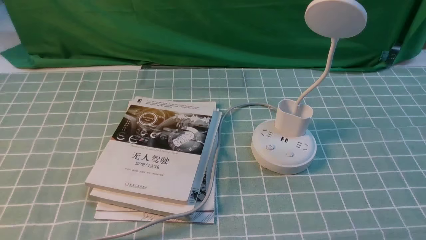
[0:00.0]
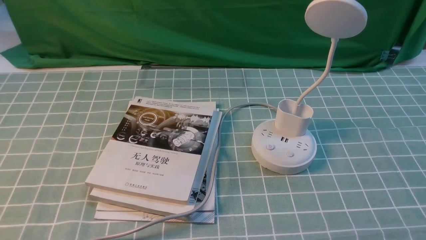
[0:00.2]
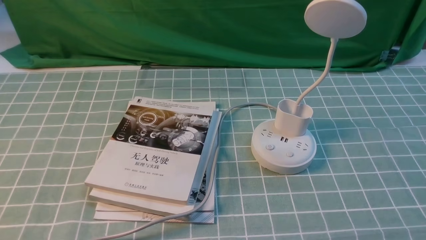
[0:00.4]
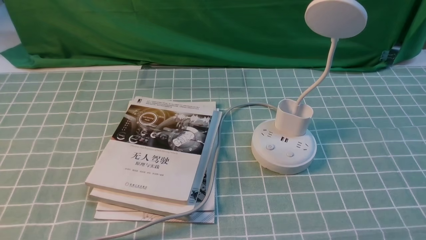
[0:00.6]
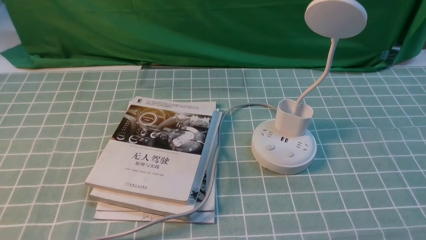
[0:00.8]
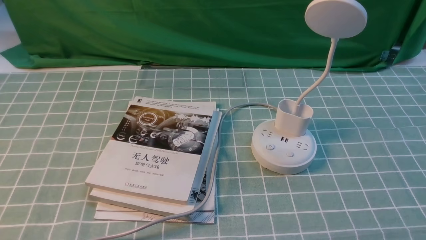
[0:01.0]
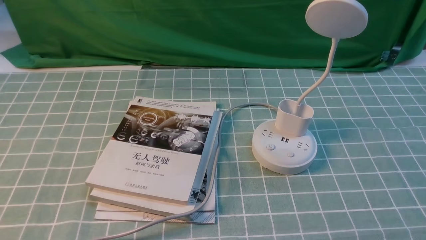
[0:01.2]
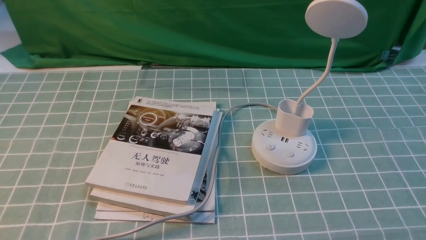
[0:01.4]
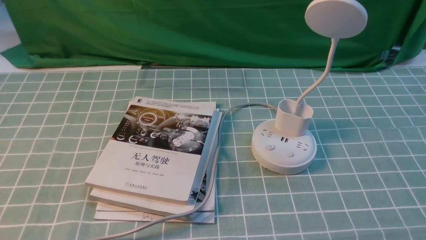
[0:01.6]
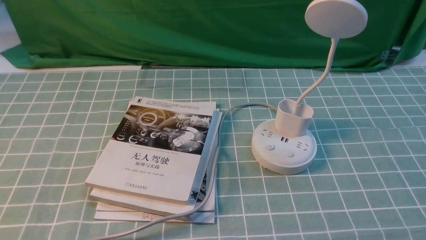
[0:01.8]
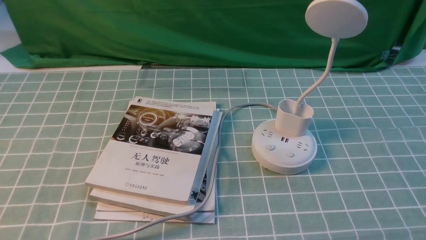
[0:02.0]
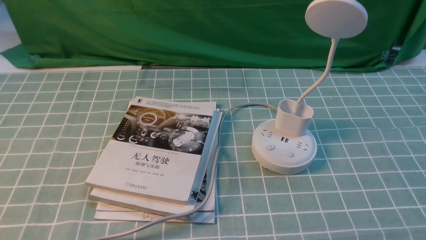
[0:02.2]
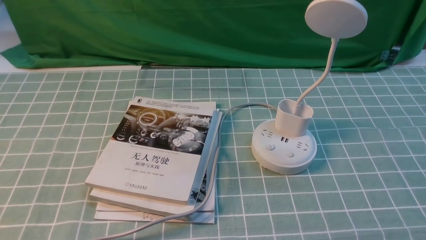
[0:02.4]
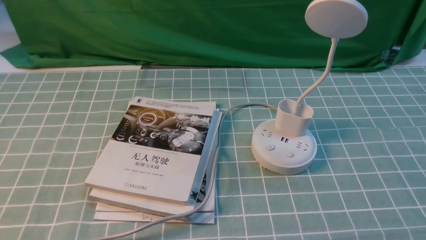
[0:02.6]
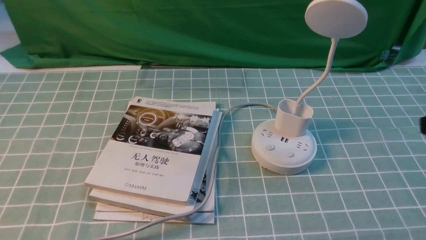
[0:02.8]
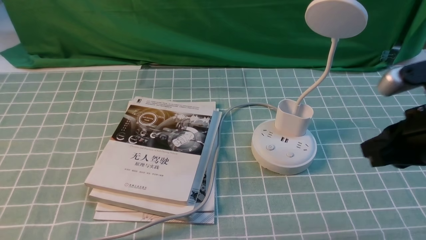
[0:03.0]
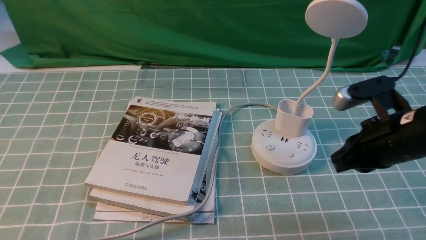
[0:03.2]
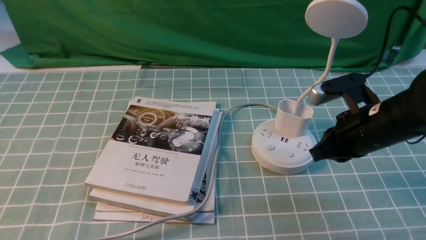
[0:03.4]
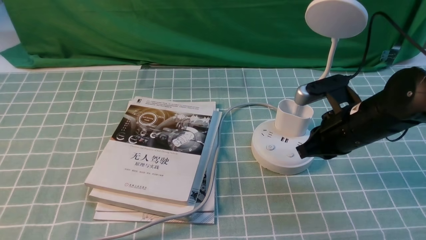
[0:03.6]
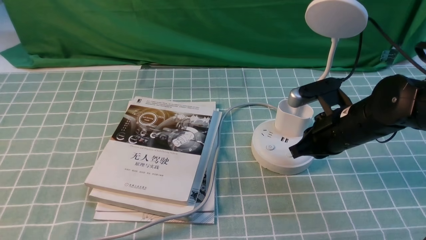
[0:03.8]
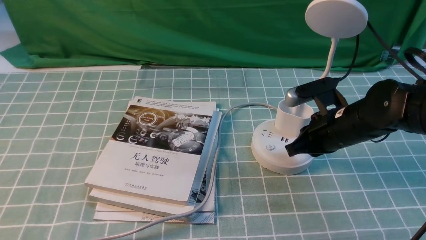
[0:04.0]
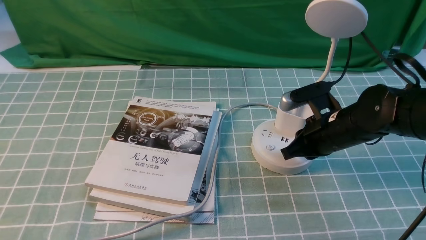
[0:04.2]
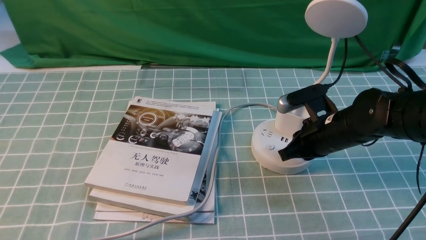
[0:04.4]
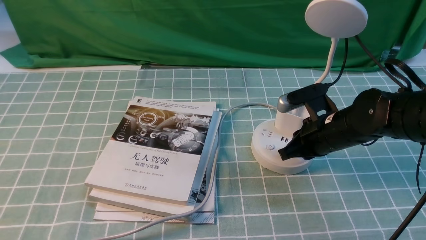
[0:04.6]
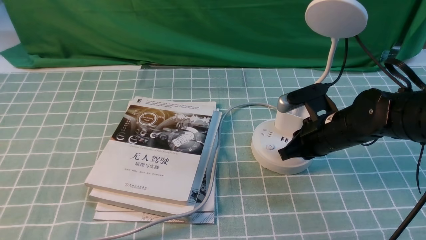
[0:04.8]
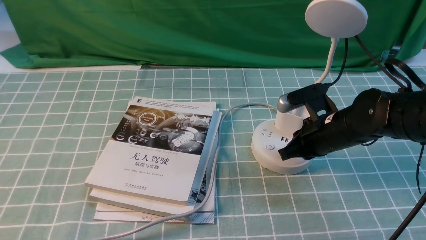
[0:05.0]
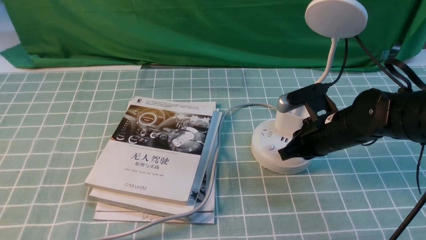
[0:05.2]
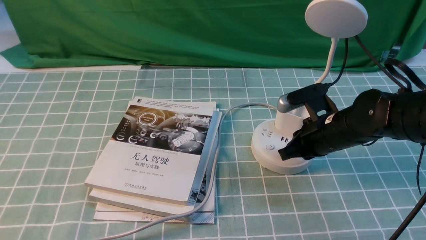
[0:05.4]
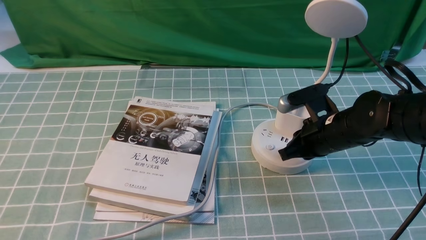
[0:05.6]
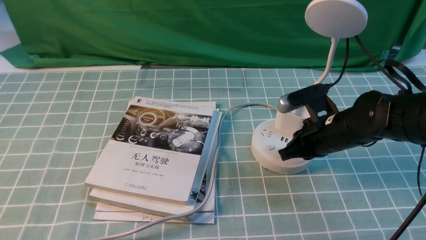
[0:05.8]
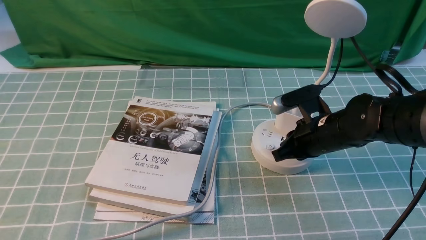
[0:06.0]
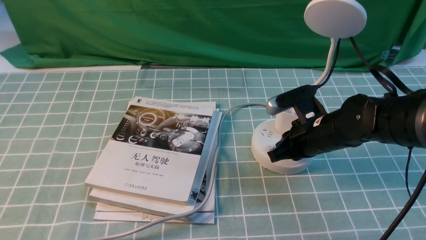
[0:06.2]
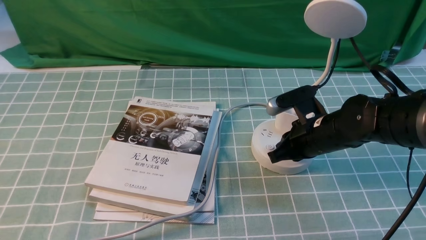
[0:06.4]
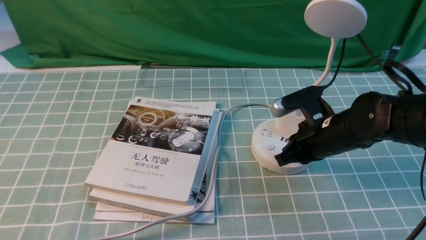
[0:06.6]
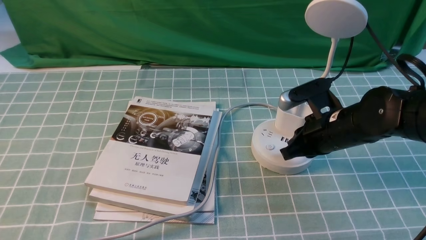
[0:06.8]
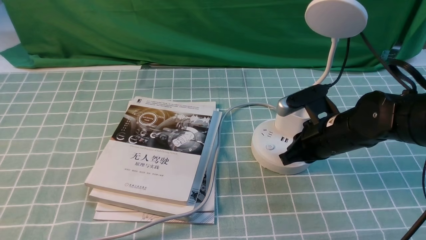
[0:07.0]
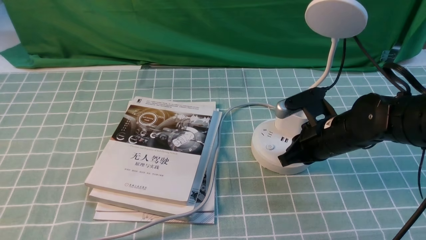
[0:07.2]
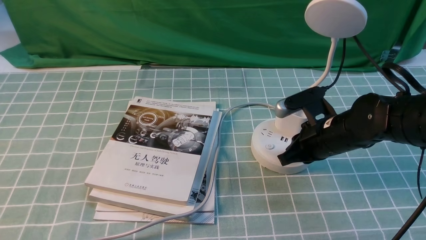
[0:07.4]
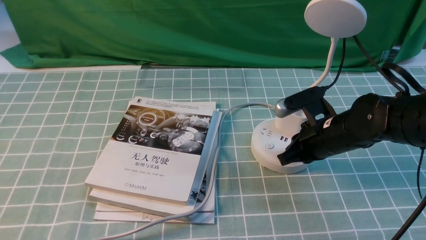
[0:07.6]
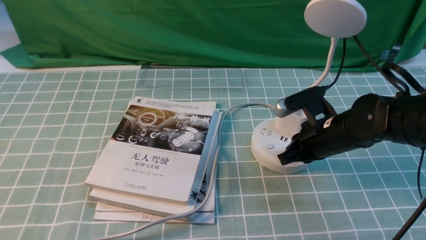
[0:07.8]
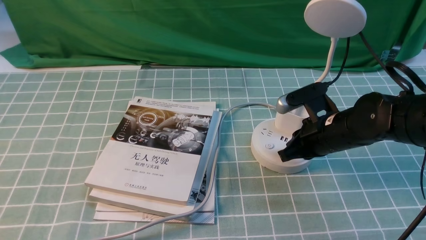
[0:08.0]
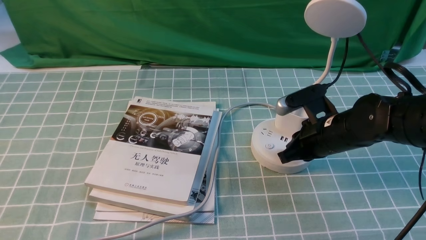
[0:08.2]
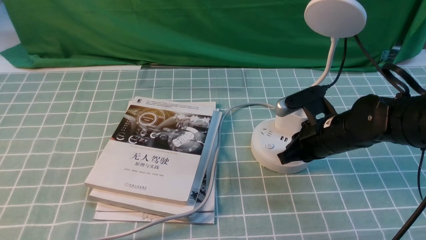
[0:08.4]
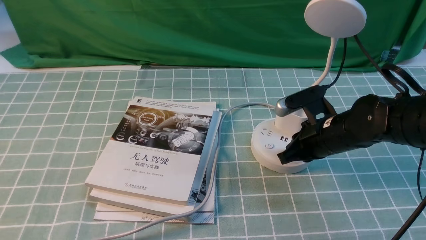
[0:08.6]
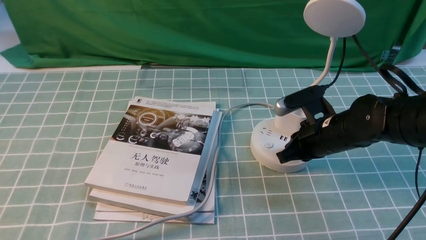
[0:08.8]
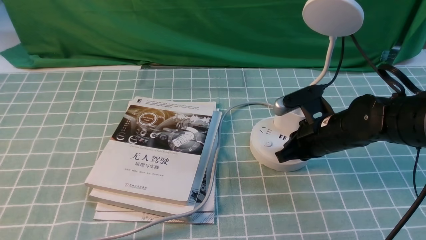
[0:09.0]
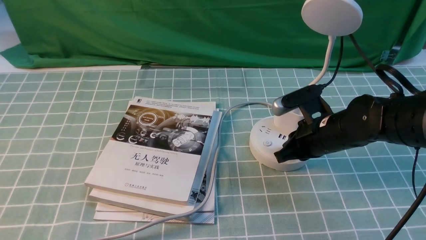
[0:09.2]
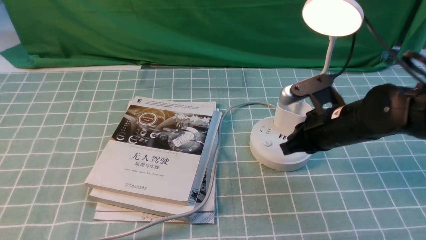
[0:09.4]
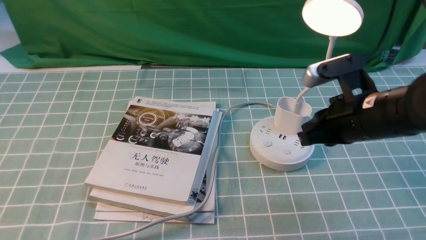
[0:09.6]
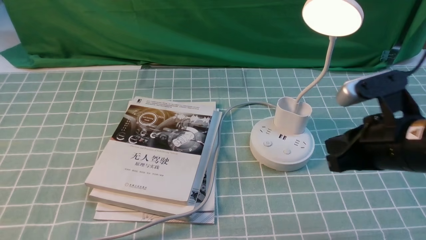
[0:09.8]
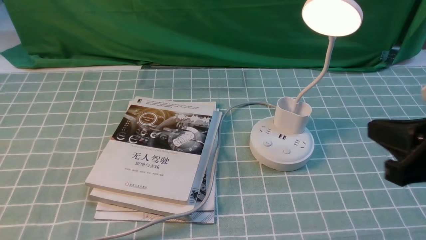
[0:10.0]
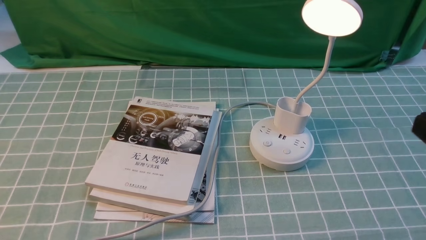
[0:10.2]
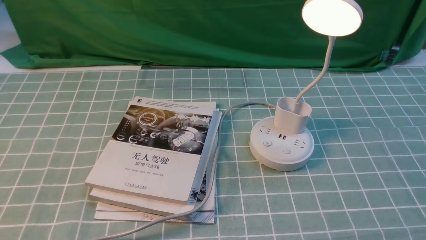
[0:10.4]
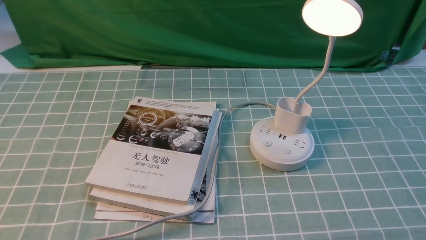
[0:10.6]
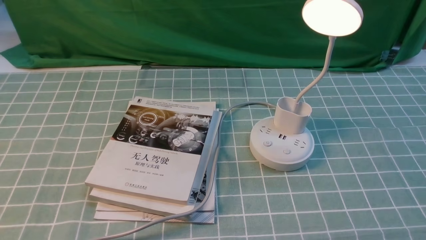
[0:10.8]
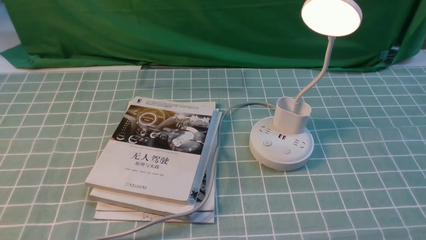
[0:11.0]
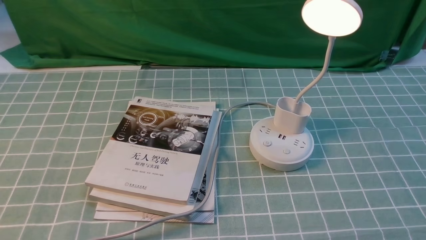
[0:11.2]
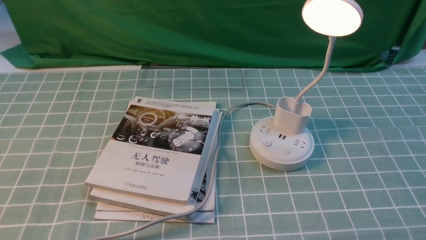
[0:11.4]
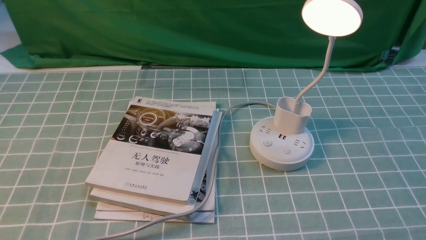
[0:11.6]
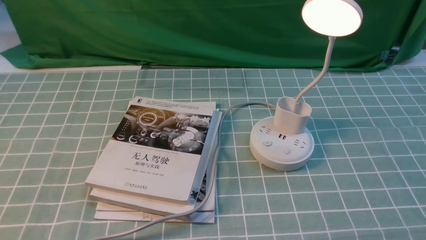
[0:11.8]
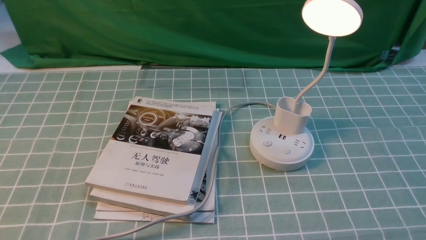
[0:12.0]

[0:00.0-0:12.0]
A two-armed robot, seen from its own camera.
Step, 0:00.0 to 0:09.4: use the right arm to press the button switch on the lamp holder.
0:01.6 to 0:03.0: The right gripper shifts about 20 cm forward and upward, and closes up.
0:03.0 to 0:04.4: The right gripper moves downward, forward and to the left, approximately 20 cm.
0:04.4 to 0:06.0: Both grippers stay put.
0:06.0 to 0:07.6: The grippers stay close to where they were, moving slightly.
0:07.6 to 0:09.0: Both grippers stay put.
0:09.0 to 0:10.4: The right gripper travels backward, upward and to the right by some 30 cm.

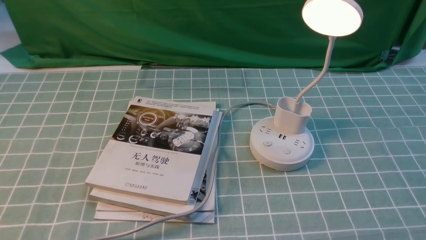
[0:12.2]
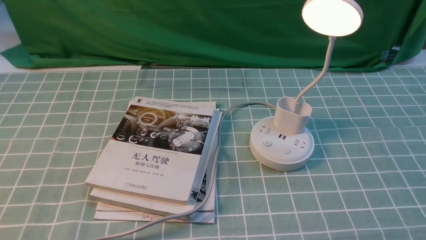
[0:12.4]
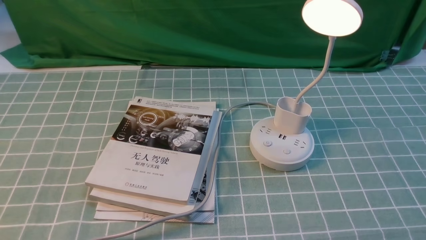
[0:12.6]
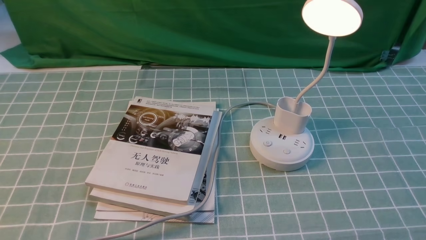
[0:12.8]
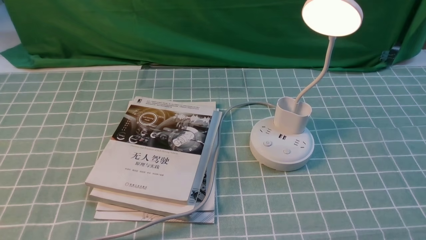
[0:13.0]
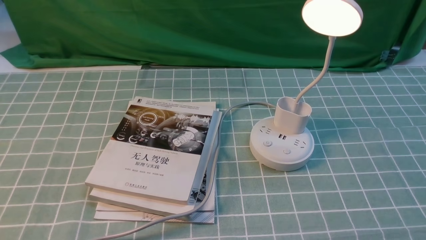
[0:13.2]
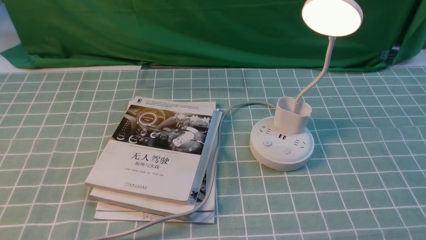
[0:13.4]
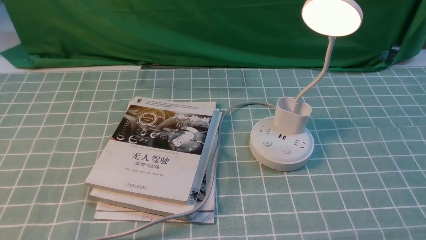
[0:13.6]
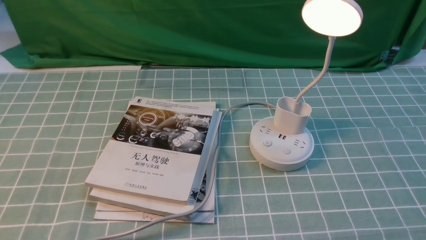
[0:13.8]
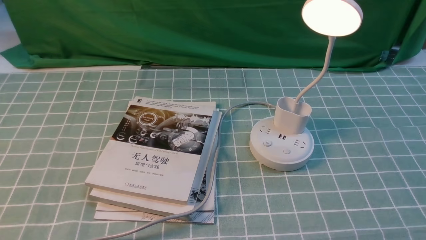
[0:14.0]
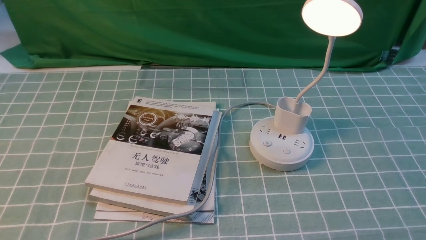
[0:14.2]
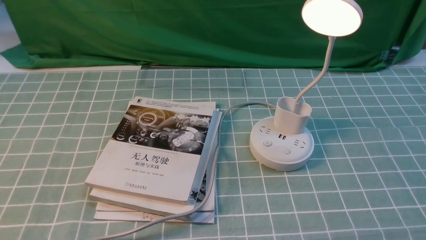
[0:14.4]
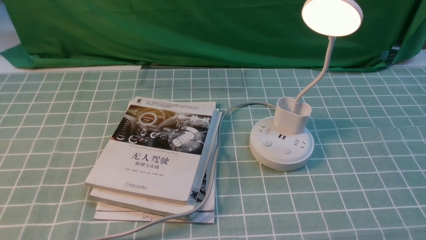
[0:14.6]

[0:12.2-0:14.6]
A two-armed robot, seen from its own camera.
0:12.2 to 0:14.6: Both grippers stay about where they are.
